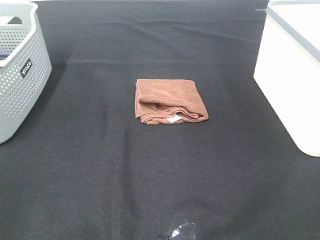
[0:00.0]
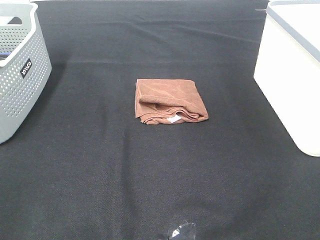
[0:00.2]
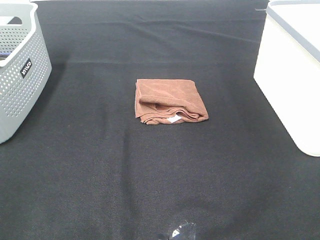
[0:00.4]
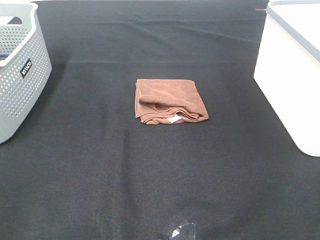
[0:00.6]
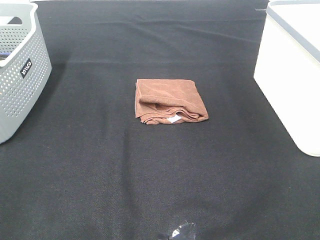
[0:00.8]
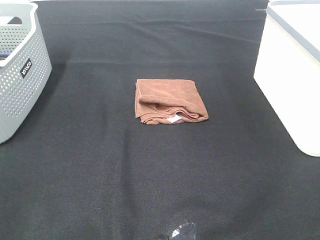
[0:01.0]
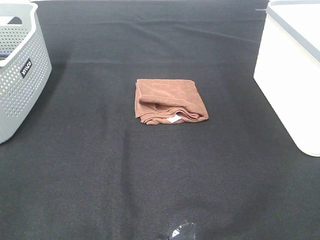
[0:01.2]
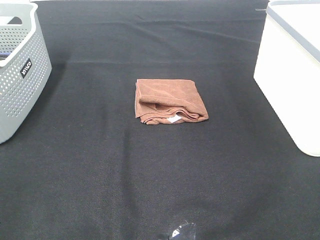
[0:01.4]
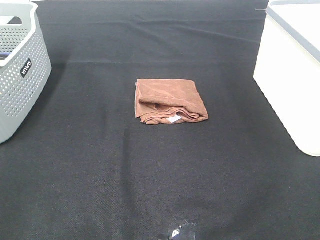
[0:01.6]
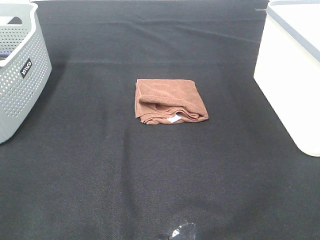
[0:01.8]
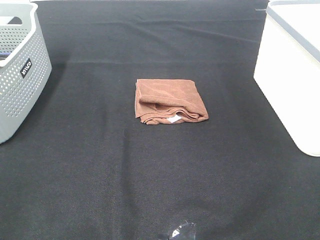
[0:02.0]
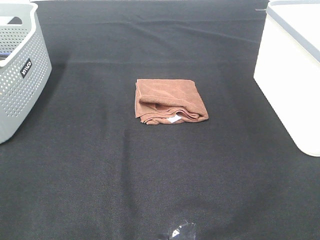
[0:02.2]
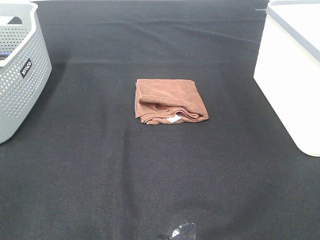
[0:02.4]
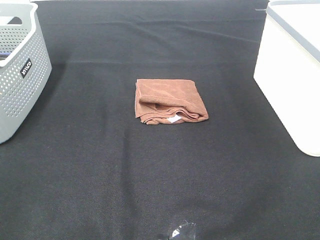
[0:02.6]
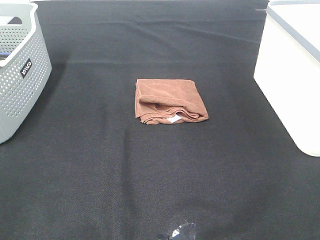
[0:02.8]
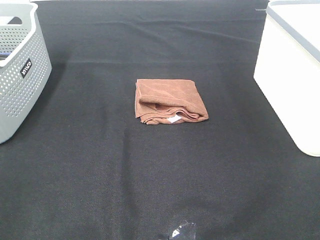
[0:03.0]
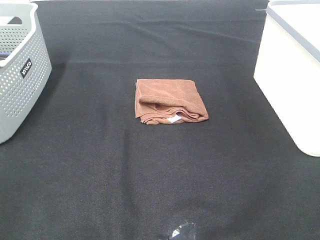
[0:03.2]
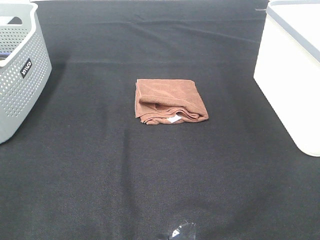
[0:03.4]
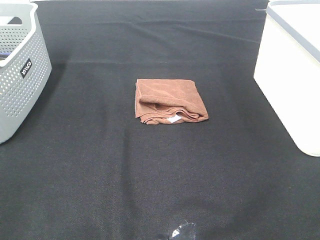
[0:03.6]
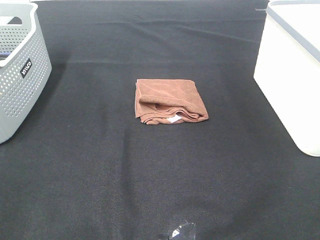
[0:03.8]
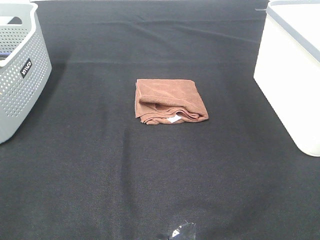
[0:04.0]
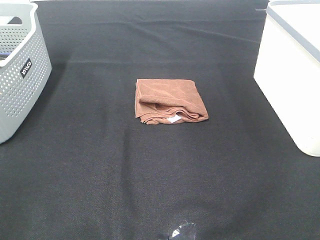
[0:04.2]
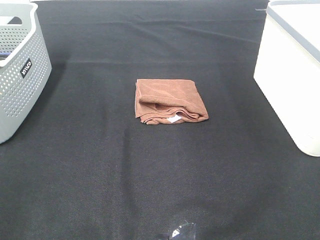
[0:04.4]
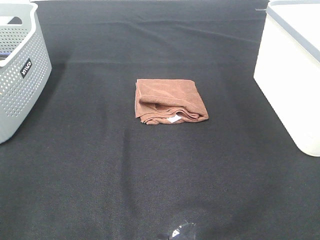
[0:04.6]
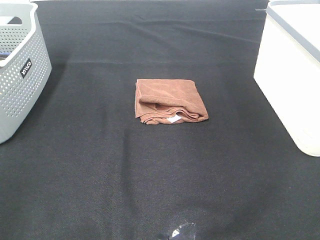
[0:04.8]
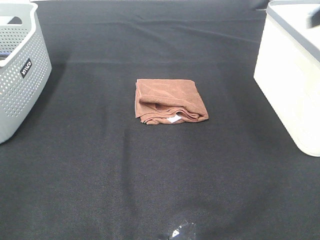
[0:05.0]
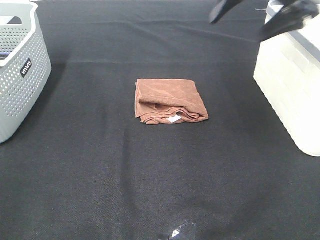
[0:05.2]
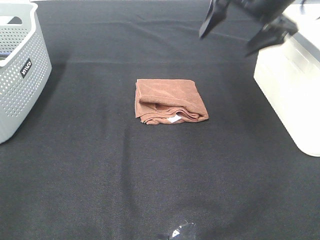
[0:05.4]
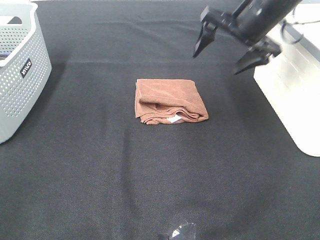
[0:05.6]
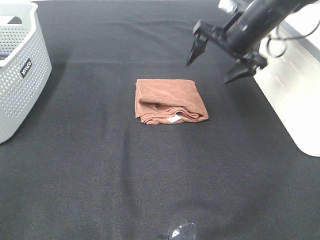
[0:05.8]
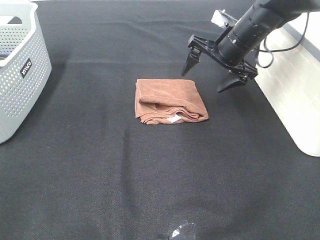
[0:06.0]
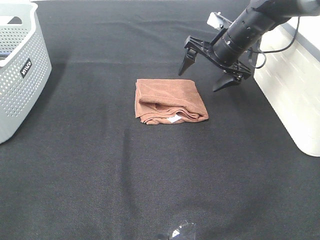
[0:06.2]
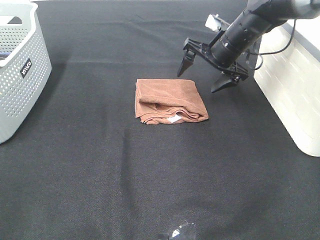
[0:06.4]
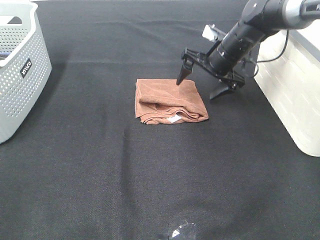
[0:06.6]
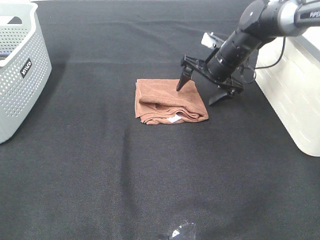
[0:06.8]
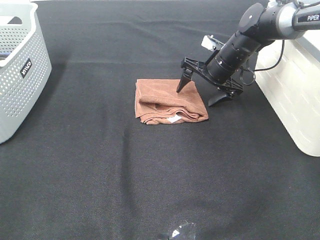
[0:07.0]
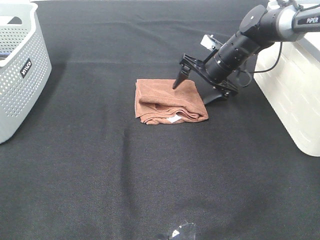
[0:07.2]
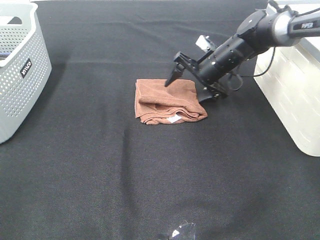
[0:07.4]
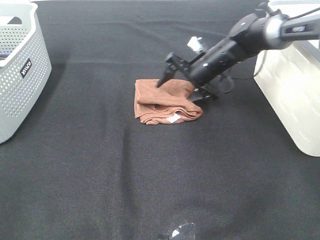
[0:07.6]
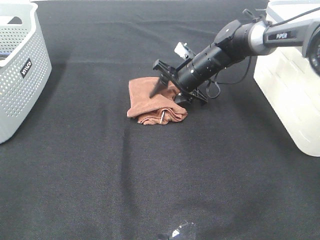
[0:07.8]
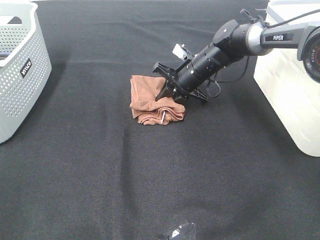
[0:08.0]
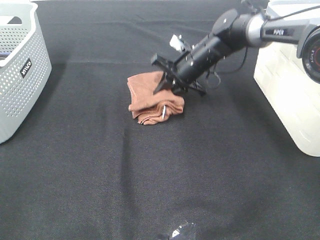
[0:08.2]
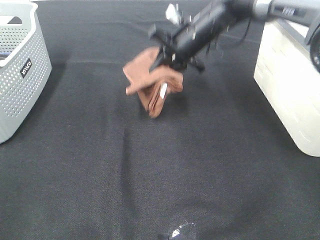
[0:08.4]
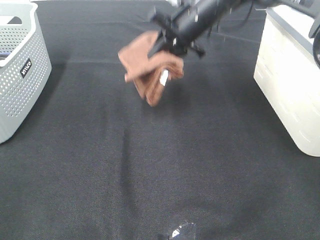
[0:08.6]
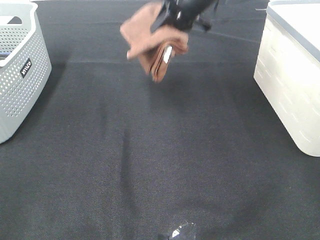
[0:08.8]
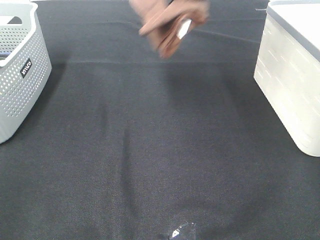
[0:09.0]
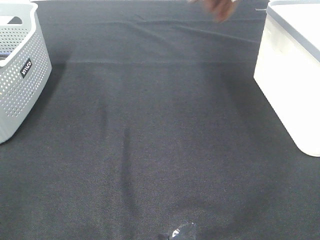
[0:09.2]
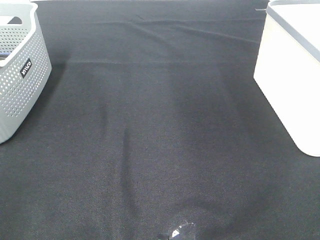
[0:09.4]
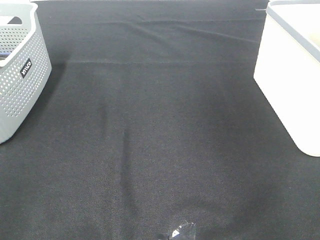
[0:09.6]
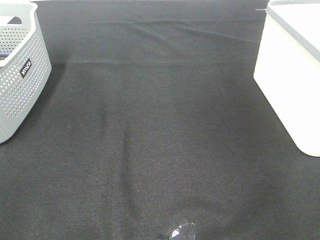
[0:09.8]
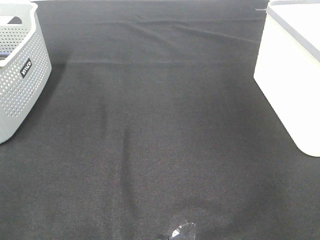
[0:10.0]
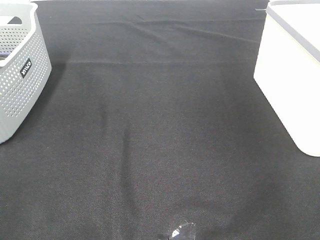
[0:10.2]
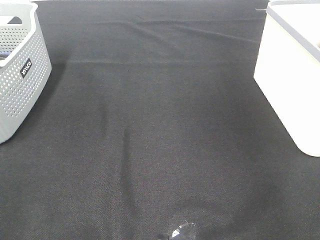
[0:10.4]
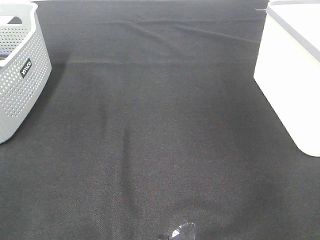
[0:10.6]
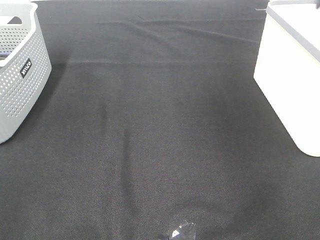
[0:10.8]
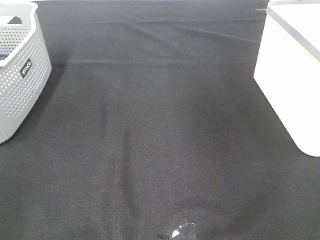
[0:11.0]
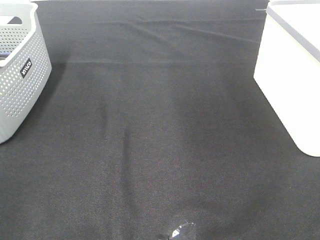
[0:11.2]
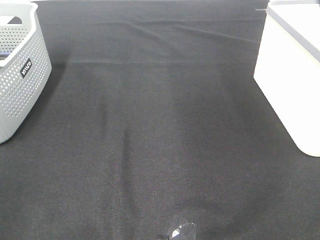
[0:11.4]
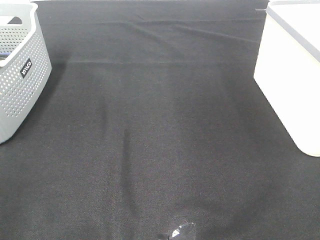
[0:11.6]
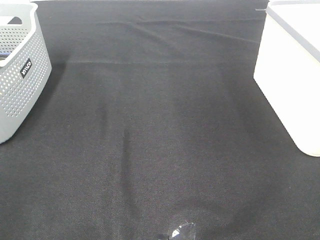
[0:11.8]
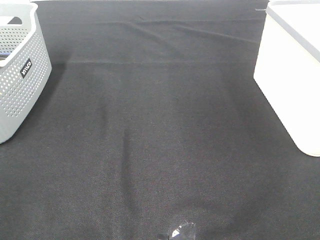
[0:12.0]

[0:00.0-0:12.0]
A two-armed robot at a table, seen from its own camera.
Step, 0:00.0 to 0:08.0: Right hand: grab the folded brown towel.
Step, 0:08.2 to 0:10.4: Right hand: place the brown towel in right basket.
0:00.0 to 0:03.0: Both grippers stay put.
0:04.4 to 0:06.0: The right gripper travels forward, downward and to the left by approximately 40 cm.
0:06.0 to 0:07.6: The right gripper goes about 10 cm downward and to the left.
0:07.6 to 0:09.0: The right gripper heads upward, covering some 25 cm, and closes.
0:09.0 to 0:10.4: The right gripper heads to the right, covering about 25 cm, and opens its fingers.

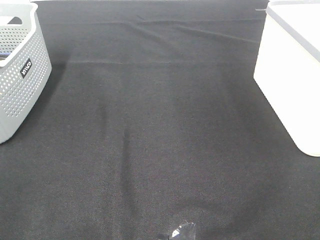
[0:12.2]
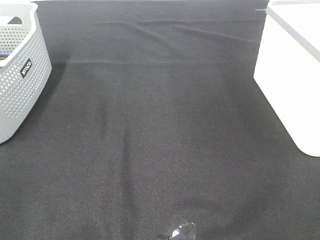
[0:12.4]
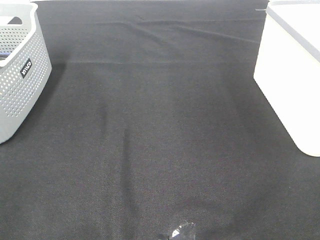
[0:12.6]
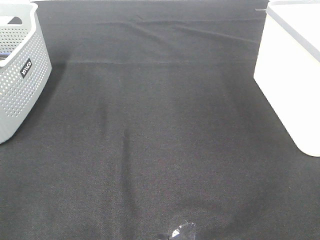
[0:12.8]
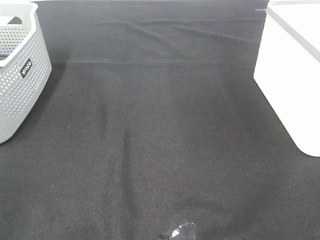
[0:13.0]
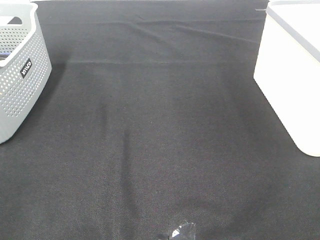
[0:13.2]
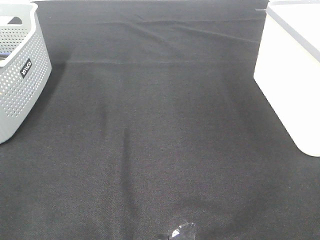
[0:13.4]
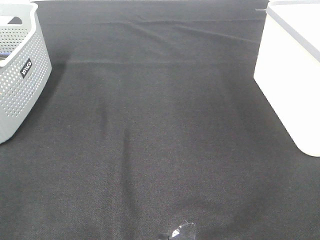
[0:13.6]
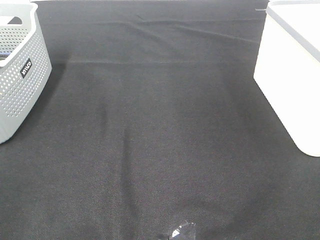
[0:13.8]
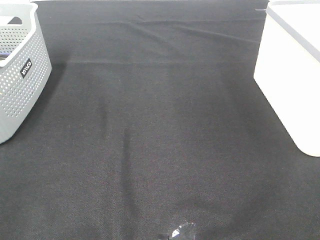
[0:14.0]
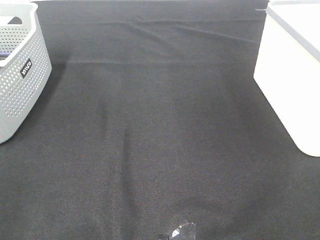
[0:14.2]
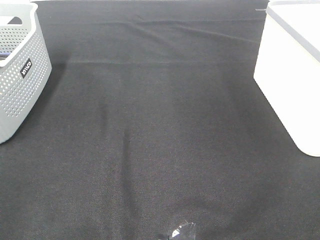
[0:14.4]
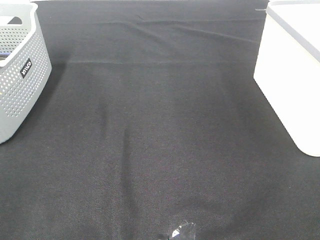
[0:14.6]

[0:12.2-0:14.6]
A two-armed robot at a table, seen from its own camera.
0:13.4 to 0:14.6: Both grippers stay put.

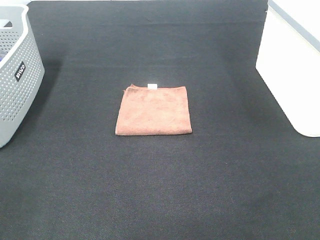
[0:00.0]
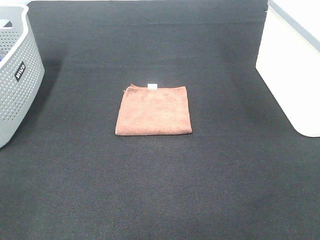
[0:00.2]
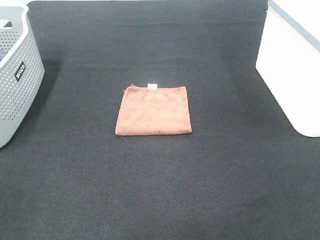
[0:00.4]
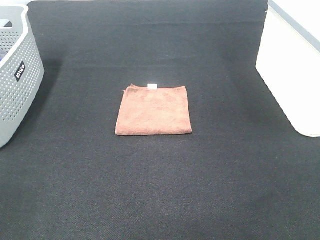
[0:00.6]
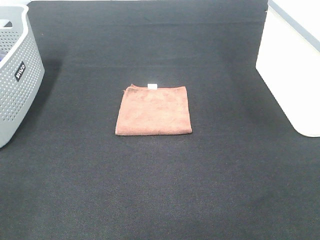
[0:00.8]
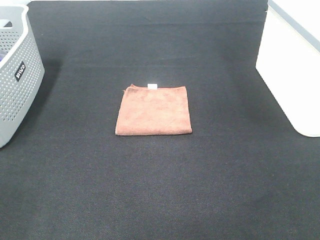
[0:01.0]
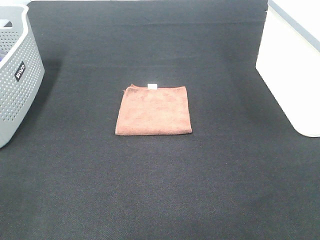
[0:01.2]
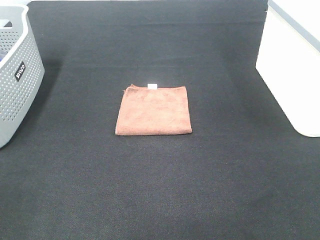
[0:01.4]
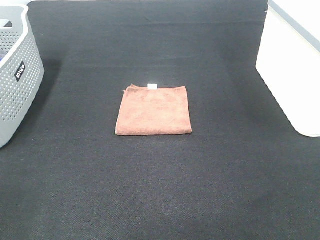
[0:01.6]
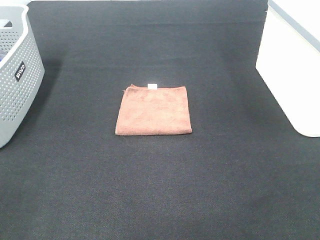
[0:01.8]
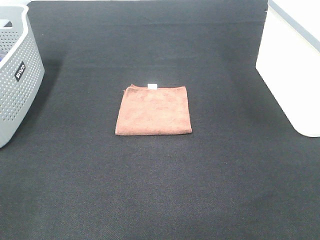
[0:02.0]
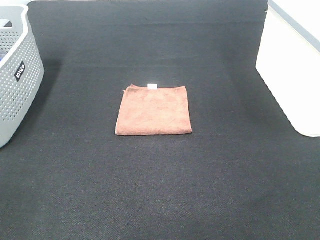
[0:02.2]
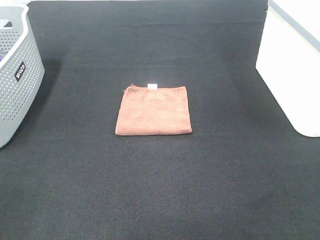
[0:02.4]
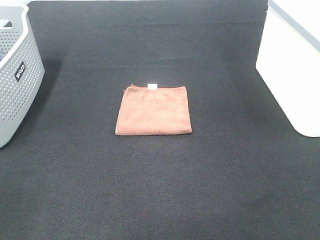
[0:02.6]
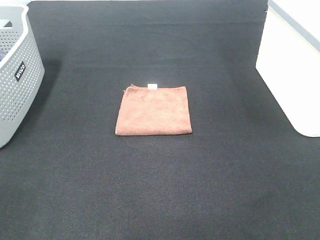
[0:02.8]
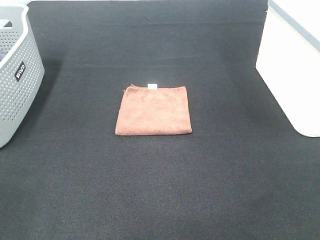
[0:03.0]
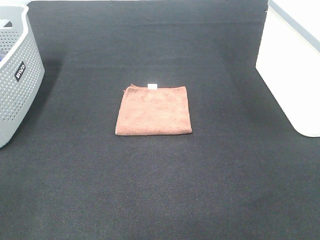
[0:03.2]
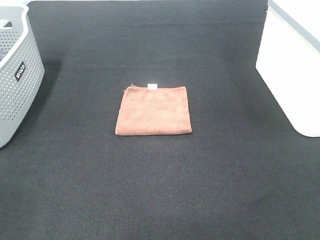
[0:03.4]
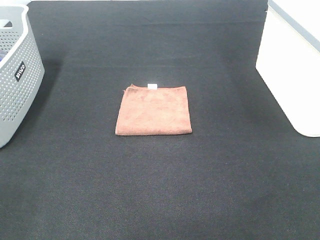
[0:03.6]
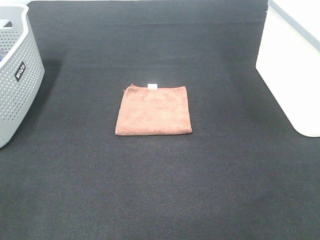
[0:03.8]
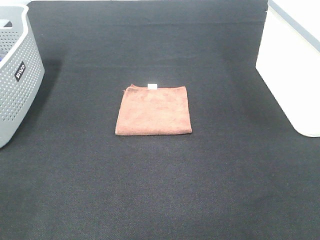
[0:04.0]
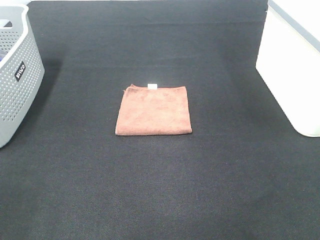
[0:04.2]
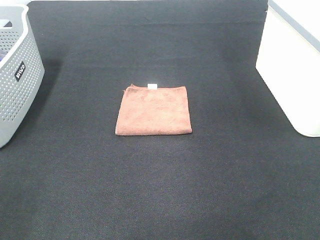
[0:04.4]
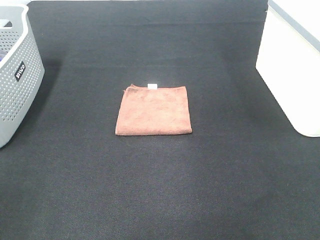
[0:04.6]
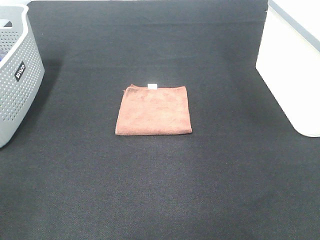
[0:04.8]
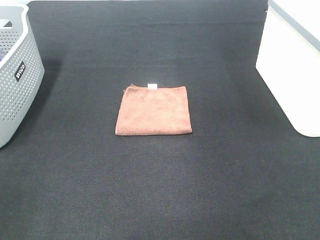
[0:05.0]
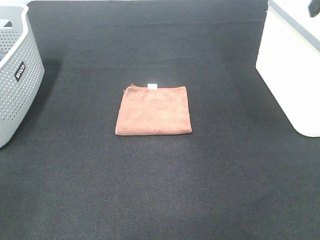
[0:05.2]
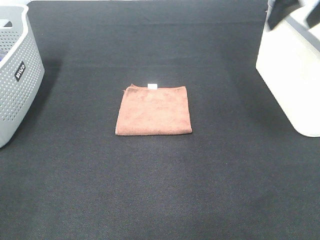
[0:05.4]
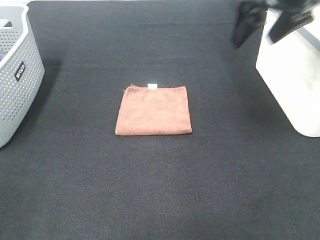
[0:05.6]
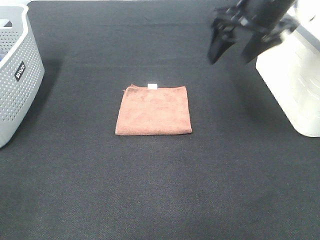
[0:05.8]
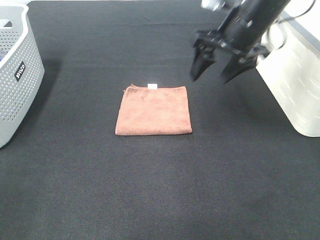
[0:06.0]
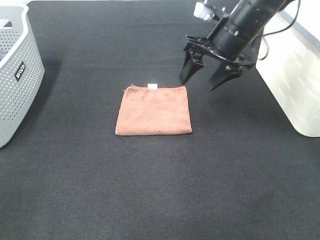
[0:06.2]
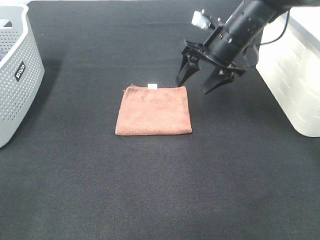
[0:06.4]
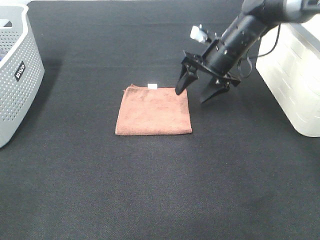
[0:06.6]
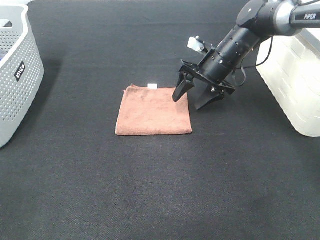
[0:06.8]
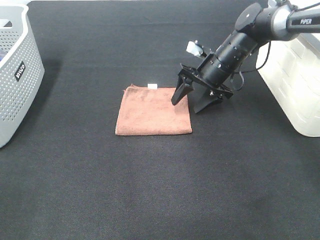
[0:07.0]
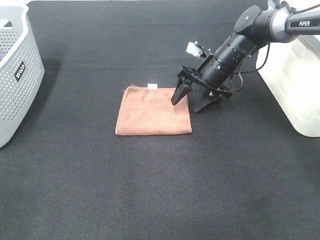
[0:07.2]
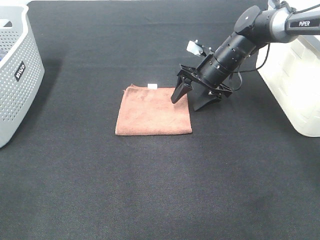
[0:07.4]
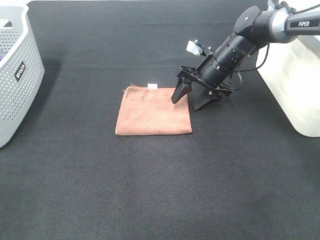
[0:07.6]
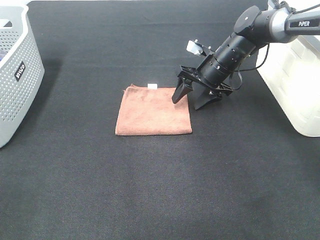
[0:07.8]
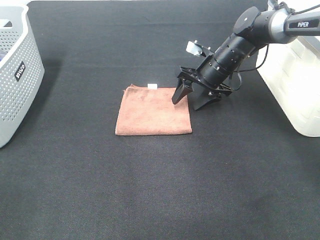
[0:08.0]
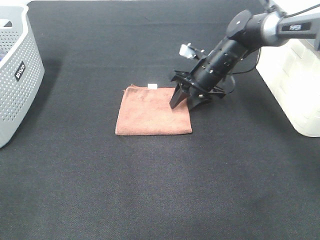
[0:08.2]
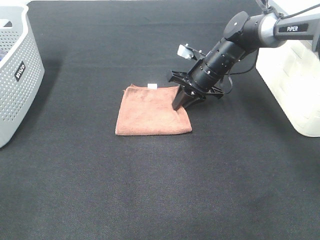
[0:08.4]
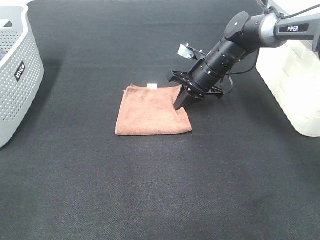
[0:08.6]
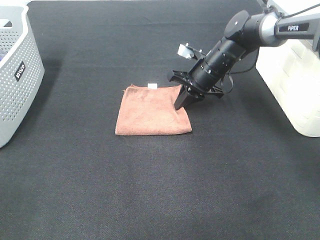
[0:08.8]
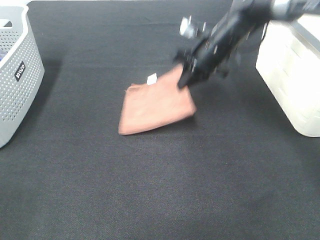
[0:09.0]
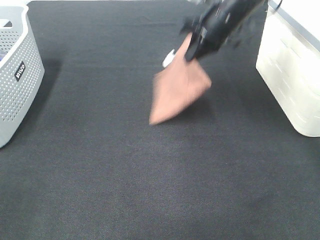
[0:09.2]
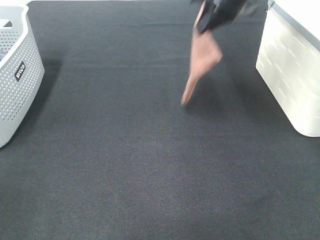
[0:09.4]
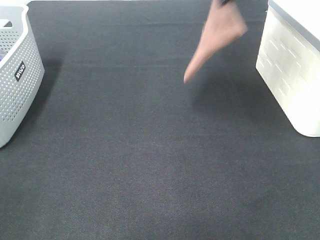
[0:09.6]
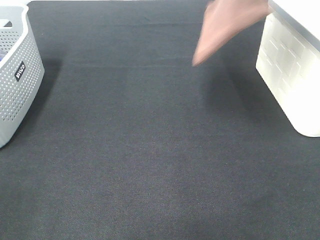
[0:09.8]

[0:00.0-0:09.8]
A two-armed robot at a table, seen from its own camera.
Step, 0:00.0 to 0:08.6: Right hand: grab the folded brown towel.
0:00.0 to 0:02.8: Both grippers stay about where they are.
0:04.2 to 0:05.6: The right gripper moves forward and to the left, some 25 cm.
0:05.6 to 0:07.0: The right gripper goes roughly 25 cm downward and forward.
0:07.0 to 0:08.4: The right gripper closes.
0:08.4 to 0:09.8: The right gripper moves upward, some 30 cm.
